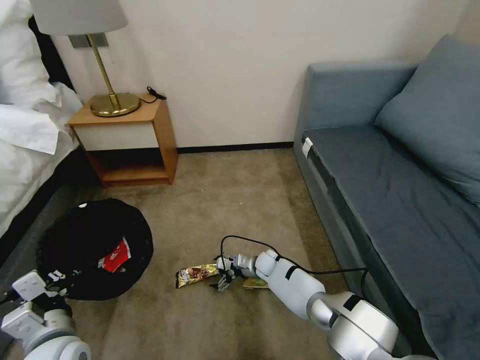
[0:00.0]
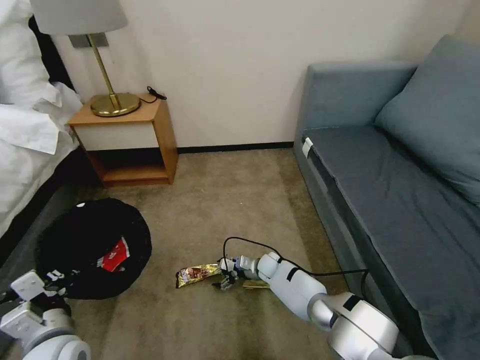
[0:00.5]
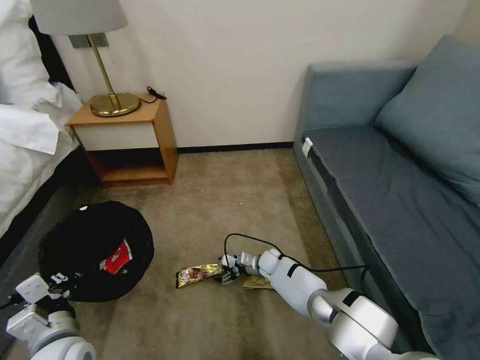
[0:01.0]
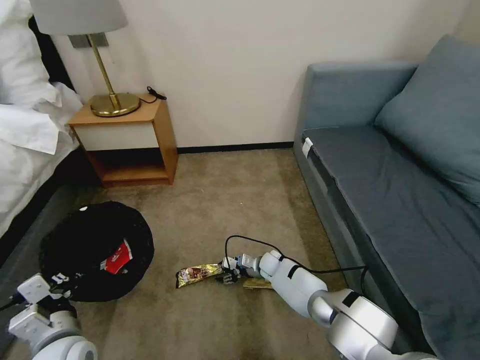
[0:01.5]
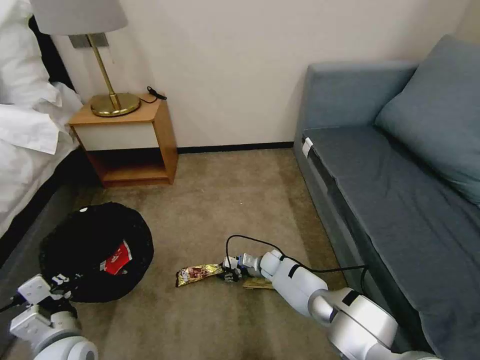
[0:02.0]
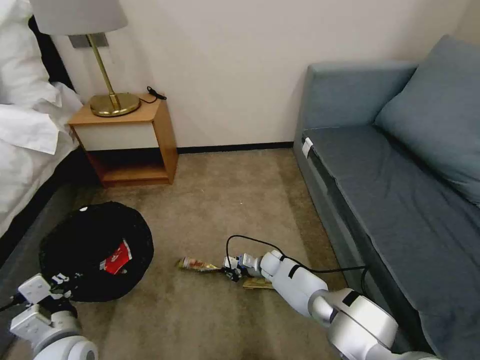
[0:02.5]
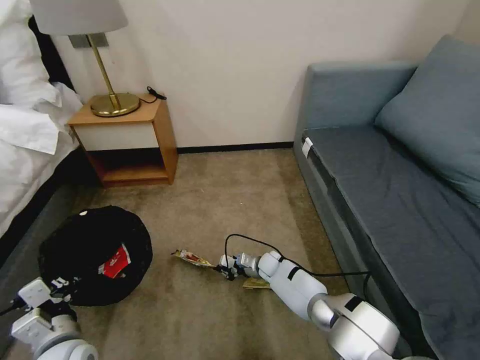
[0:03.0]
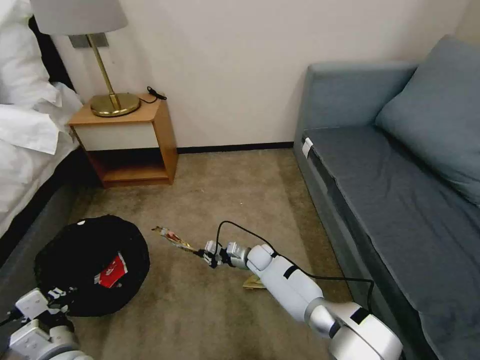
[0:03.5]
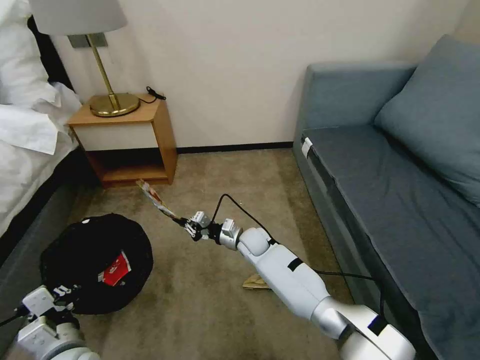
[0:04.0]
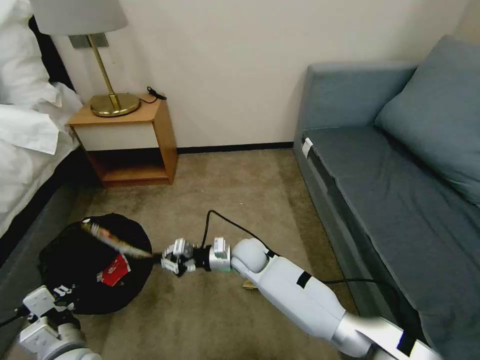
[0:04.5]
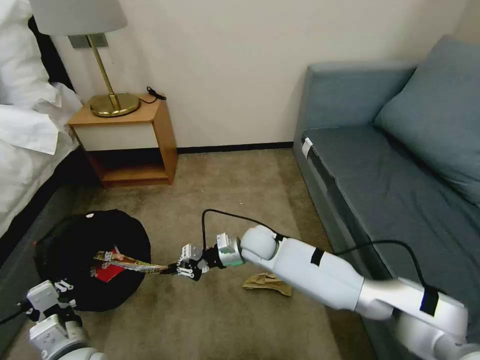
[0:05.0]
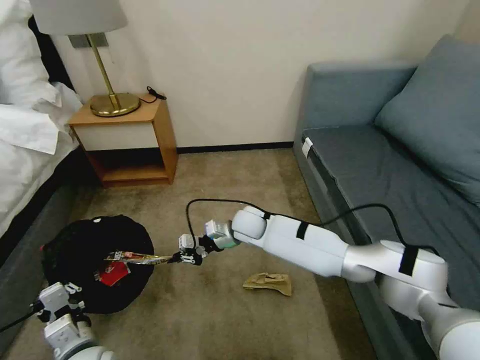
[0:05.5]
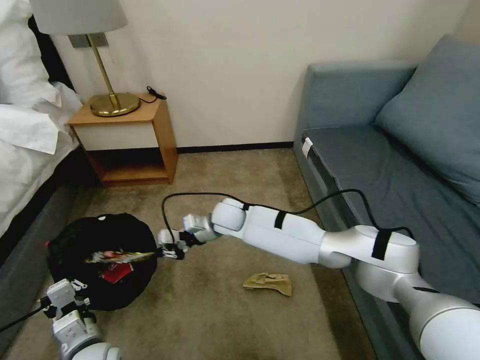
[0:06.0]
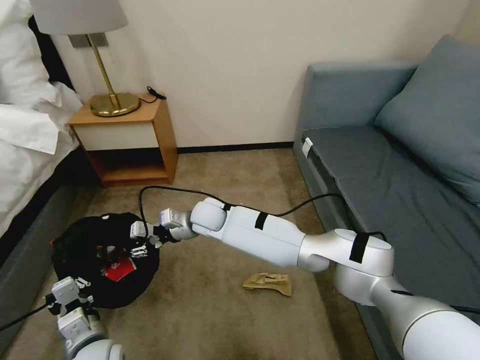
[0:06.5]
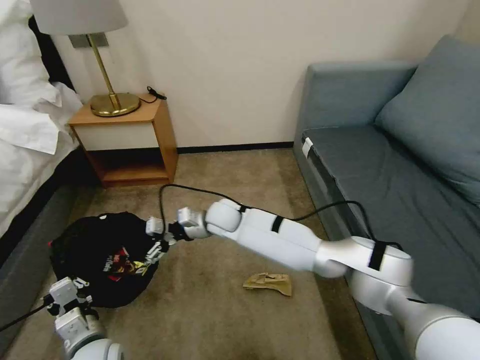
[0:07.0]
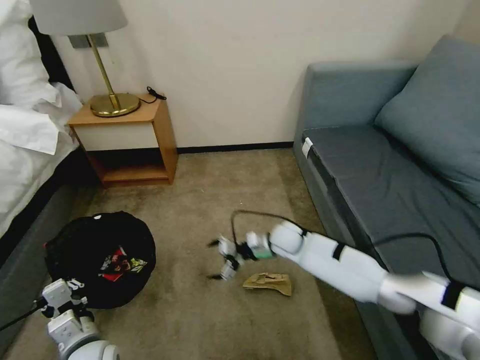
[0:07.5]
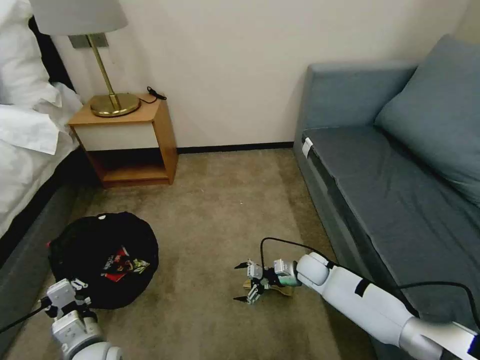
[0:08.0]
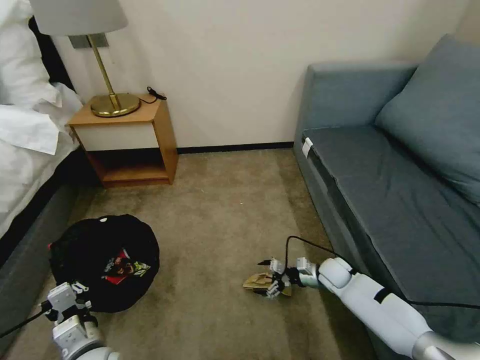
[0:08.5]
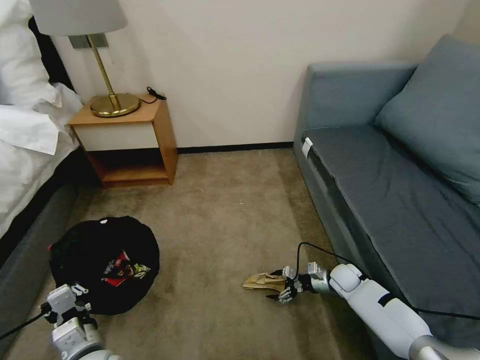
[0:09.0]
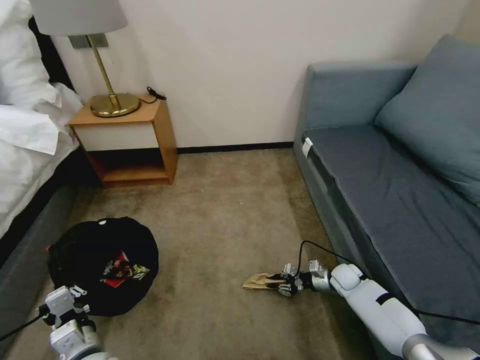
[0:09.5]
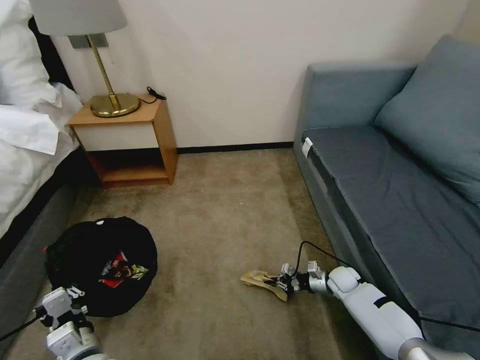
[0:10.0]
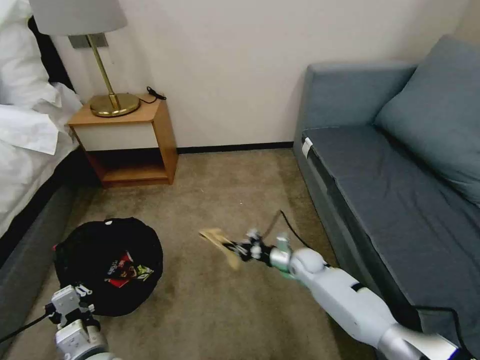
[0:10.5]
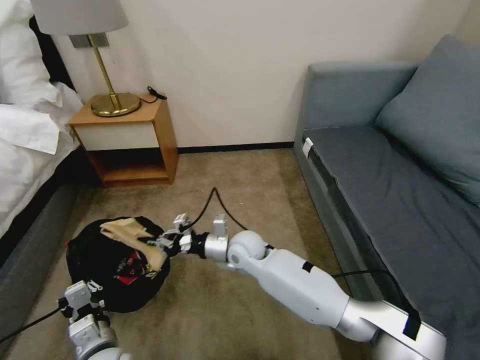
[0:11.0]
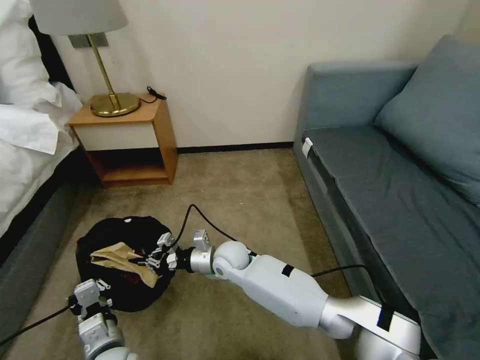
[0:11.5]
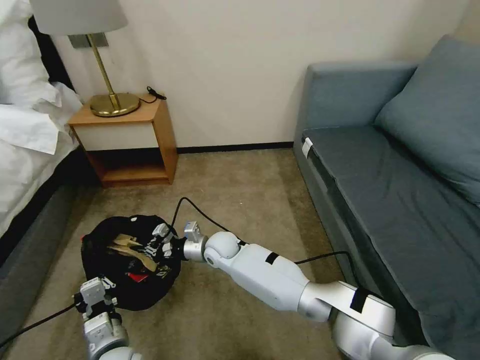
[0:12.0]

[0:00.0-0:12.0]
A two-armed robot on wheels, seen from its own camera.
Task of the whole recording: Pick up the trash bin, then pick up the garbage on the floor and place it into the trash bin.
0:00.0 to 0:02.0: The right gripper closes.
0:02.0 to 0:04.0: The right gripper is displaced upward and to the left by approximately 15 cm, and closes its fingers.
0:04.0 to 0:06.0: The right gripper is displaced upward and to the left by approximately 15 cm.
0:06.0 to 0:08.0: The right gripper travels to the right and downward by about 30 cm, and opens up.
0:08.0 to 0:10.0: The right gripper heads to the right and downward, covering roughly 15 cm, and closes up.
0:10.0 to 0:12.0: The right gripper travels to the left by about 40 cm.

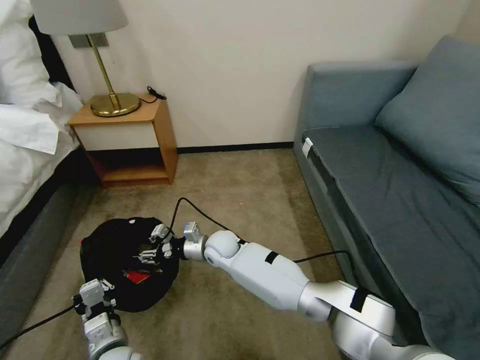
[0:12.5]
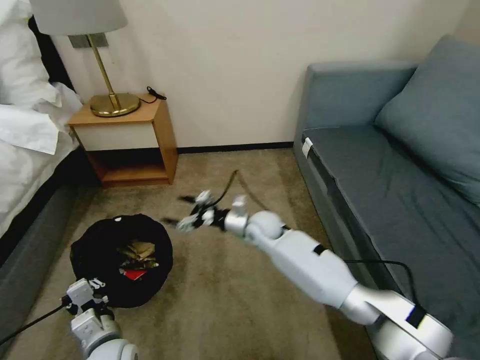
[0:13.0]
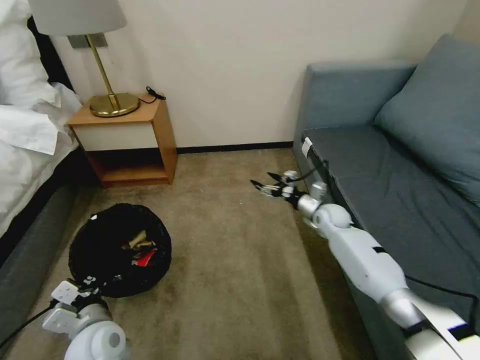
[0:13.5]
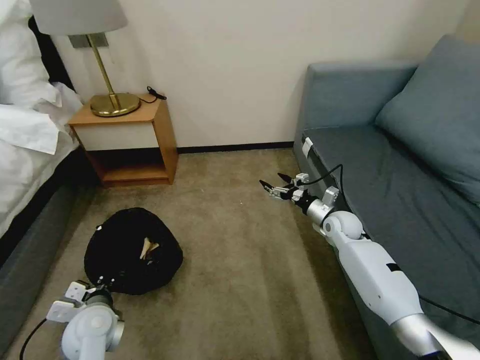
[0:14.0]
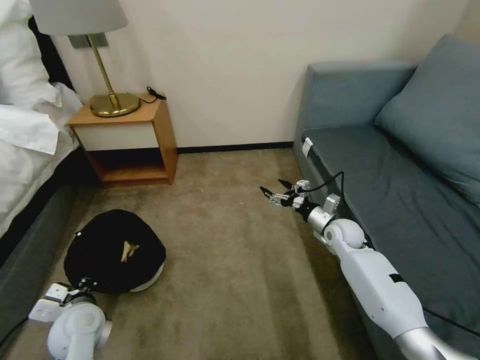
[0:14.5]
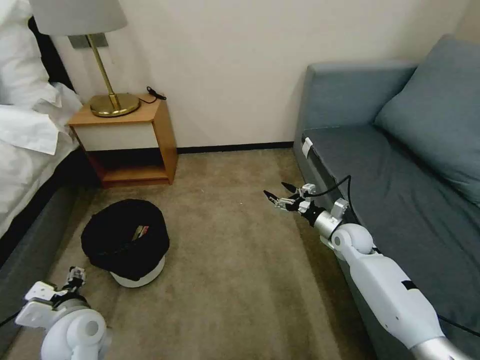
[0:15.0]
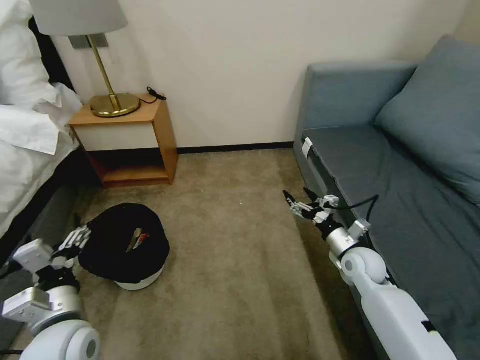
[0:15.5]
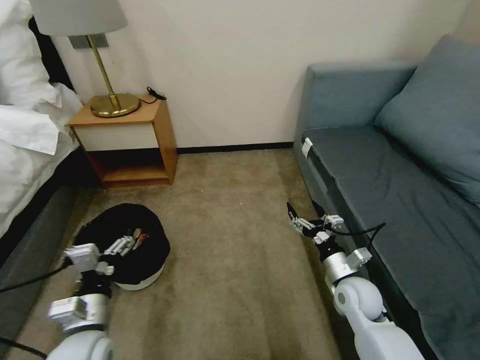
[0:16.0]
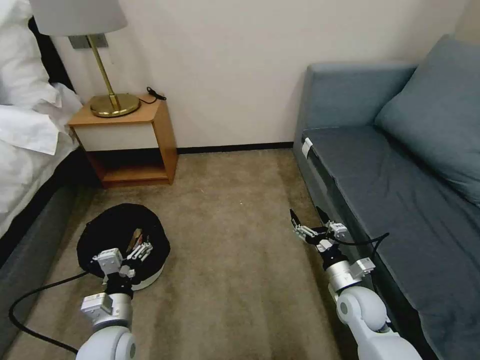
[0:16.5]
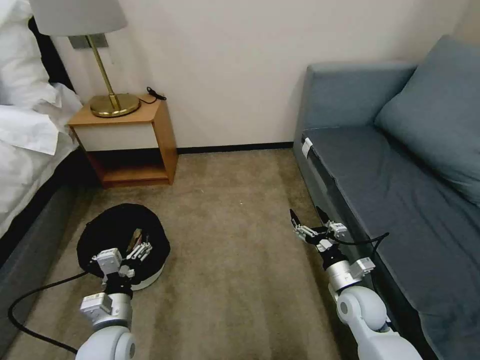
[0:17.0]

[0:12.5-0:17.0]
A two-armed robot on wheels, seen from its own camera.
Task of the whole recording: Pick up the trash bin, then pick up the garbage on the floor and place it into the trash bin.
0:12.5 to 0:14.5: The right gripper travels to the right by approximately 35 cm, and opens up. Meanwhile the left gripper heads to the left and forward, covering approximately 10 cm.
0:14.5 to 0:17.0: The right gripper moves backward, roughly 20 cm; the left gripper travels to the right by some 10 cm, reaches roughly 10 cm upward, then returns, and opens its fingers.
